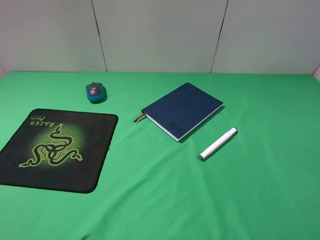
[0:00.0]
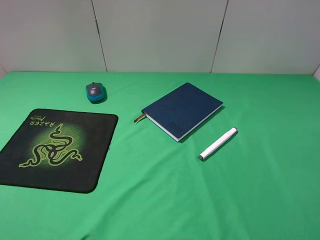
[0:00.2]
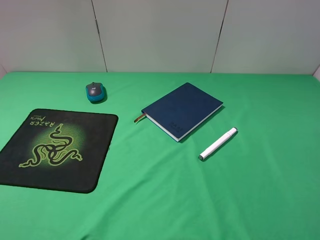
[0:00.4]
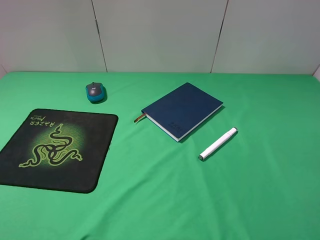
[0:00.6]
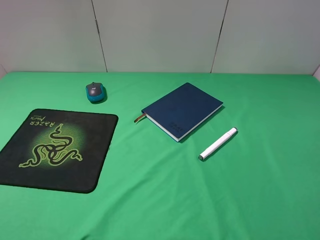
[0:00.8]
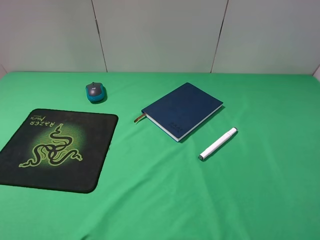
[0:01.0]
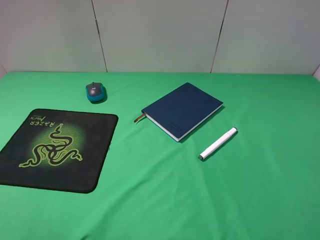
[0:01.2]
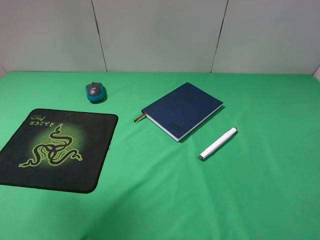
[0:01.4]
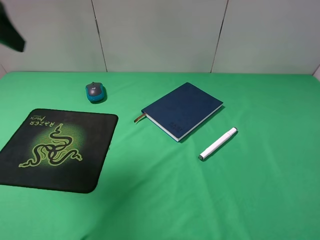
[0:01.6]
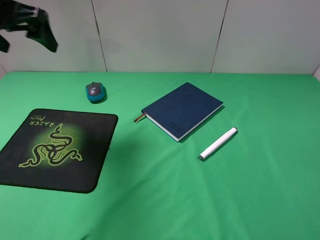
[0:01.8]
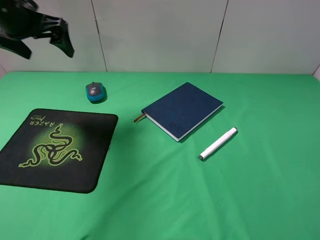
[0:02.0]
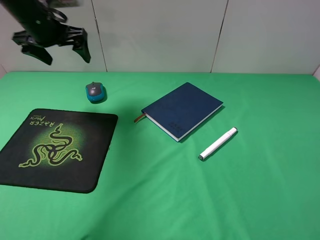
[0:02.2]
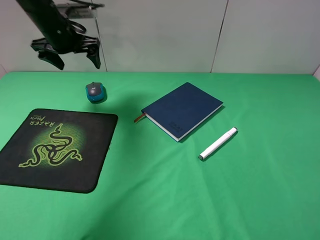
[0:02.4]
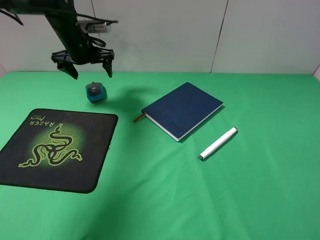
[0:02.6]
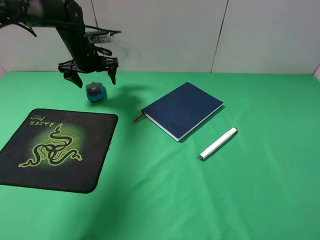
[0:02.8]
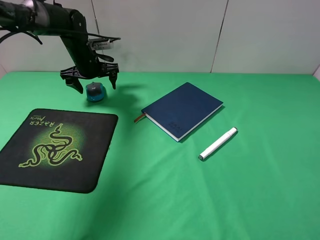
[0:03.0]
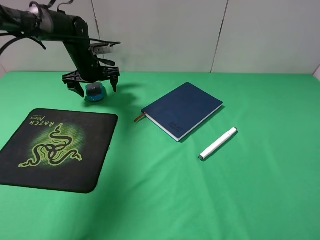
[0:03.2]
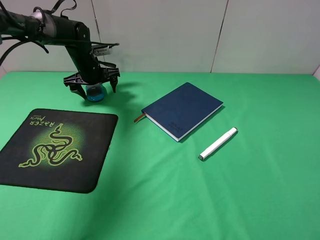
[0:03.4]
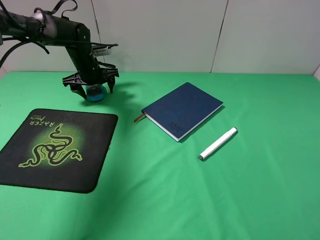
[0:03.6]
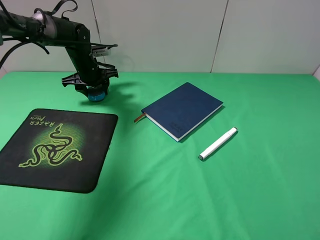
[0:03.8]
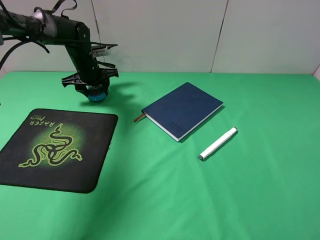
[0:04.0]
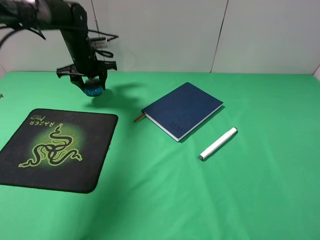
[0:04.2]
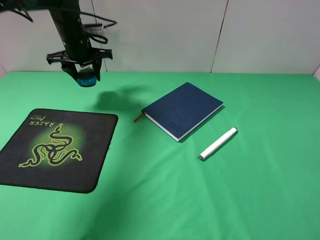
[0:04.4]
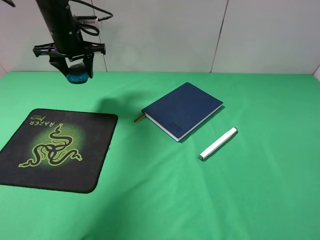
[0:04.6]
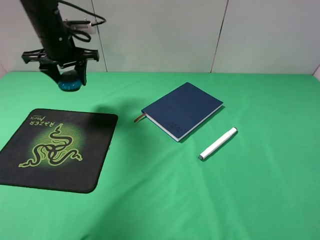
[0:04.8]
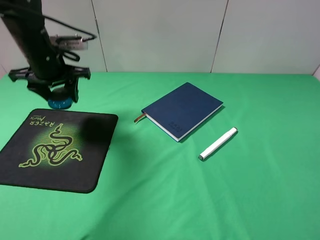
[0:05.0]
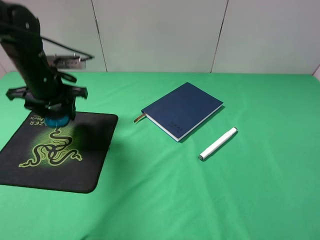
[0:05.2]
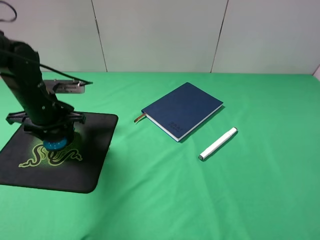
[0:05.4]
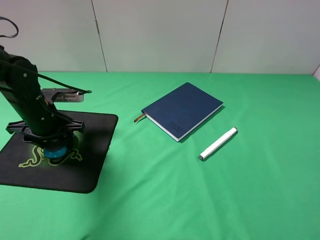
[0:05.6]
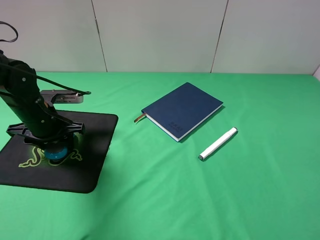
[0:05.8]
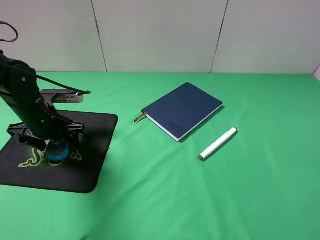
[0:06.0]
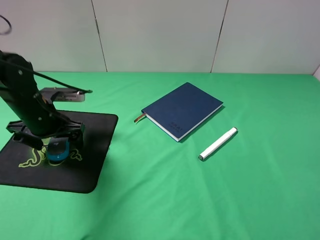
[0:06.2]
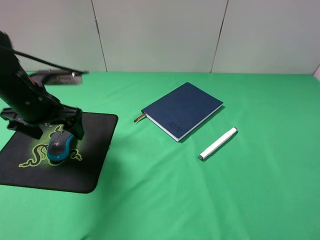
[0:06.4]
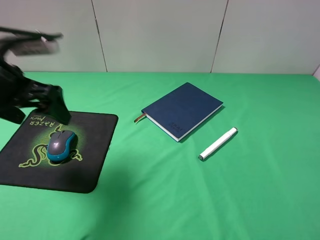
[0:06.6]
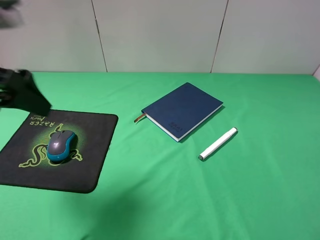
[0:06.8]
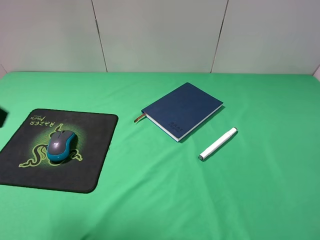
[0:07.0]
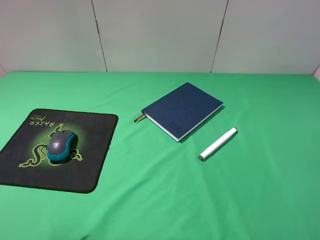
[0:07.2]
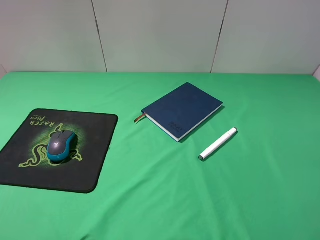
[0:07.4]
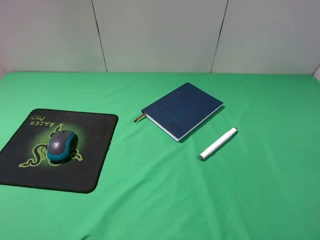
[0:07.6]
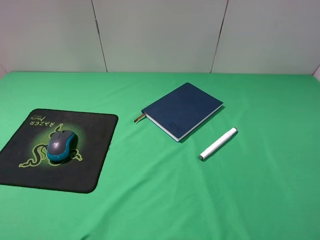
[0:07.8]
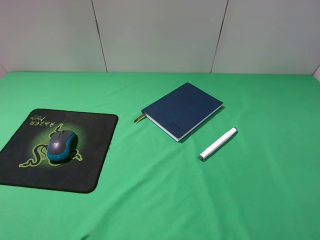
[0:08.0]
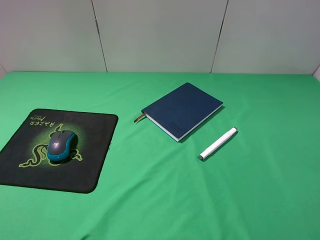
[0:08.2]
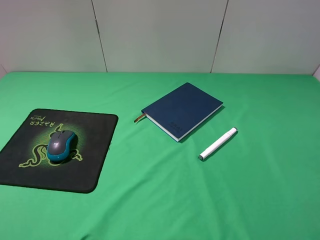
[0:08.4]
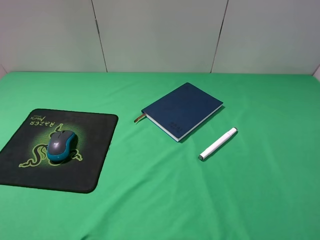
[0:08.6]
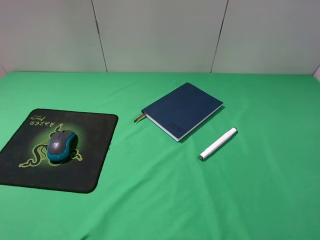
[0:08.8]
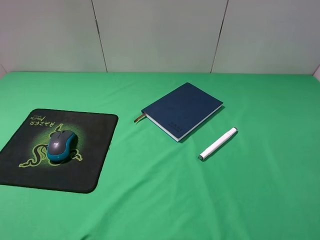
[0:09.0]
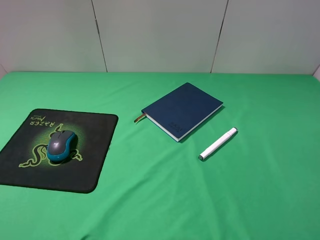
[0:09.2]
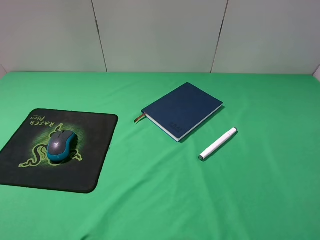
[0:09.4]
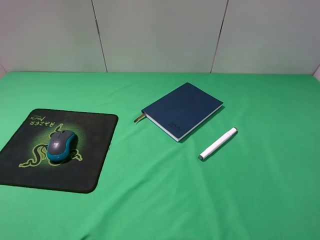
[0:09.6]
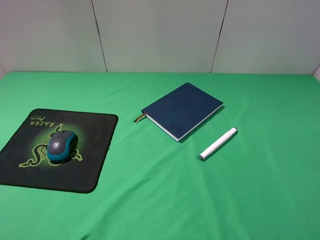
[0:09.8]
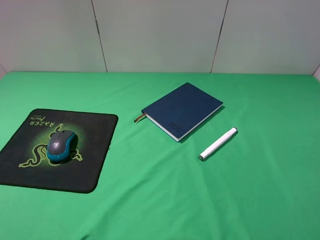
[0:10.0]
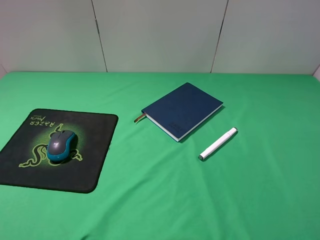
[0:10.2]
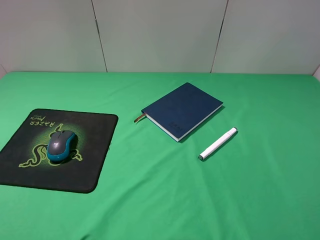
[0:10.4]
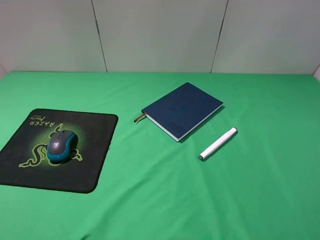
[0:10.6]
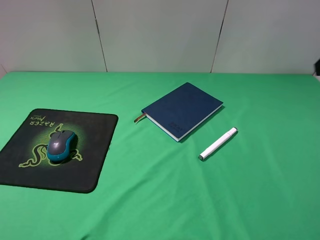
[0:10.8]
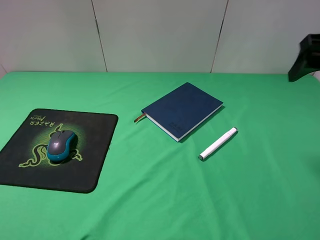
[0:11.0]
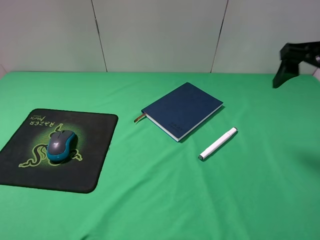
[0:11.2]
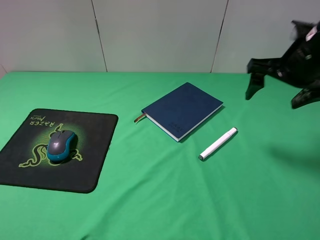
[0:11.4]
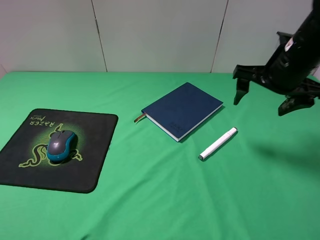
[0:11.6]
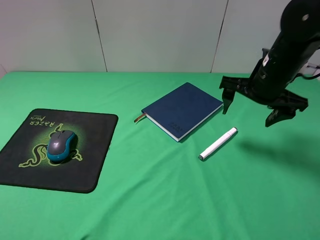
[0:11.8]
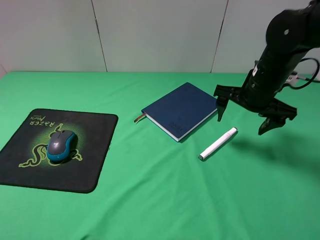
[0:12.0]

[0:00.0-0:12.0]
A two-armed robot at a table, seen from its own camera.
Step, 0:00.0 to 0:03.8: Grasp the mouse with the left gripper.
Step, 0:04.0 to 0:06.2: Place the mouse on the mouse pad with the left gripper.
0:00.0 to 0:01.6: The left gripper moves forward, approximately 25 cm.
0:01.6 to 0:03.0: The left gripper goes roughly 30 cm forward and downward.
0:03.0 to 0:04.4: The left gripper travels upward by about 5 cm, and closes its fingers.
0:04.4 to 0:06.0: The left gripper goes some 20 cm backward and downward, and opens up.
0:06.0 to 0:07.6: The left gripper shifts approximately 35 cm backward and upward.
0:10.4 to 0:12.0: The right gripper shifts about 30 cm forward, downward and to the left.

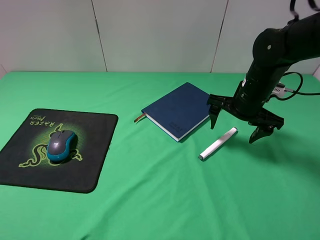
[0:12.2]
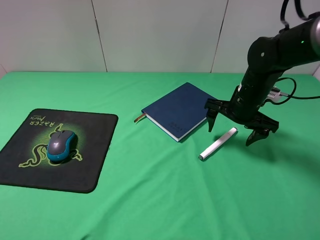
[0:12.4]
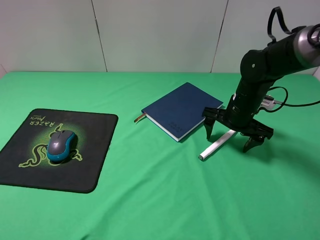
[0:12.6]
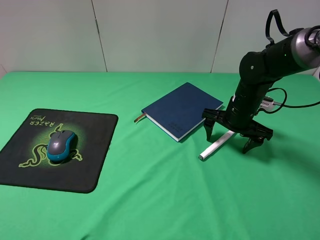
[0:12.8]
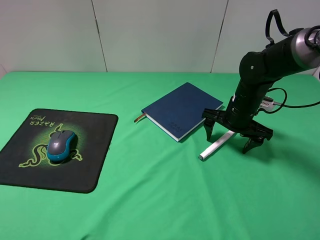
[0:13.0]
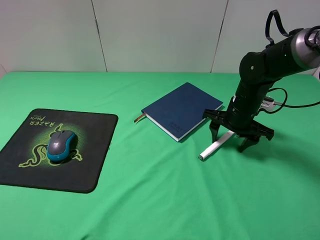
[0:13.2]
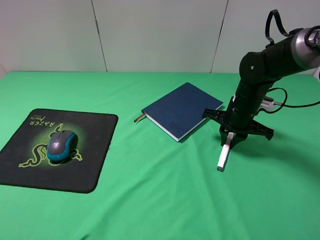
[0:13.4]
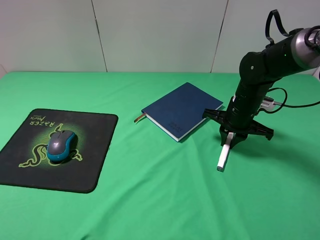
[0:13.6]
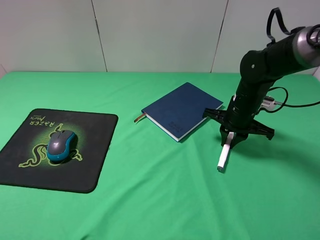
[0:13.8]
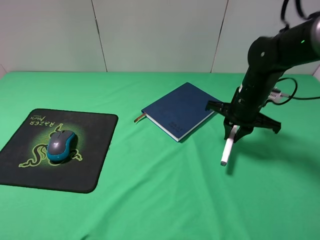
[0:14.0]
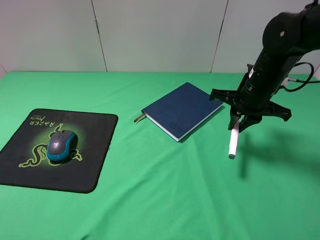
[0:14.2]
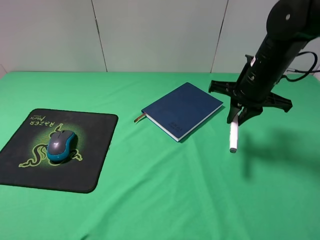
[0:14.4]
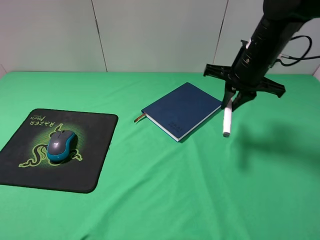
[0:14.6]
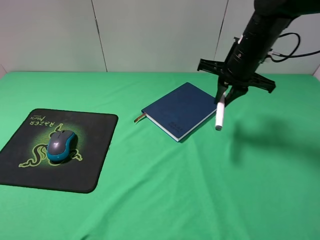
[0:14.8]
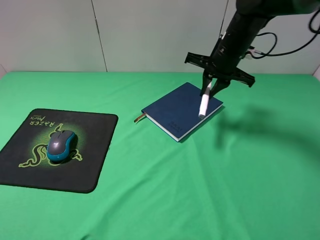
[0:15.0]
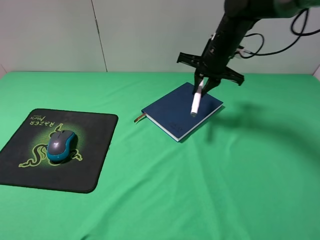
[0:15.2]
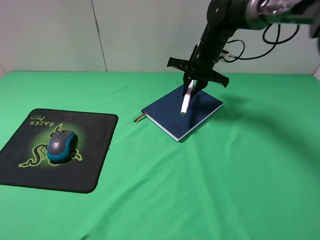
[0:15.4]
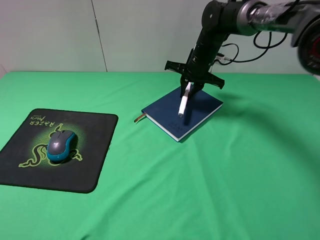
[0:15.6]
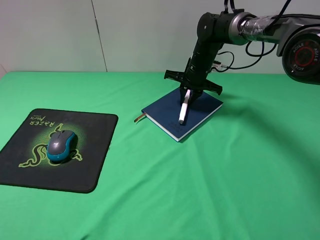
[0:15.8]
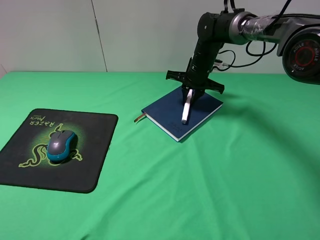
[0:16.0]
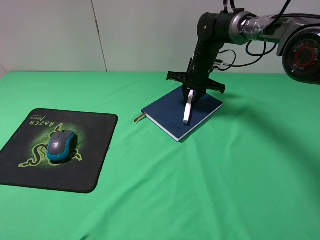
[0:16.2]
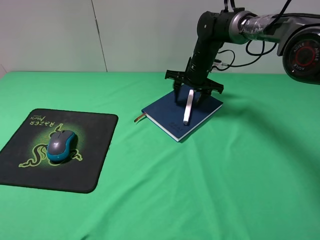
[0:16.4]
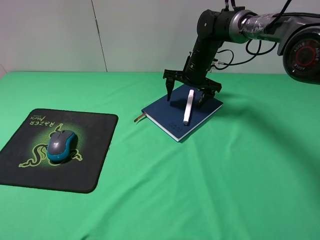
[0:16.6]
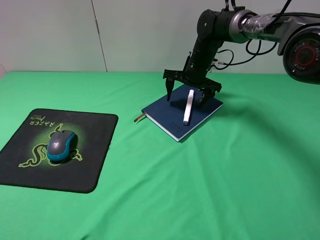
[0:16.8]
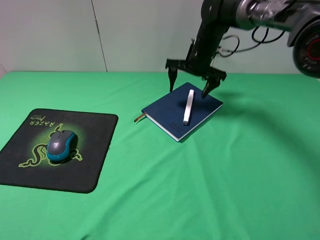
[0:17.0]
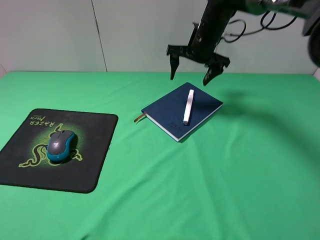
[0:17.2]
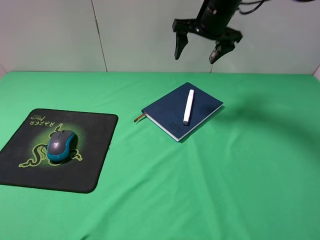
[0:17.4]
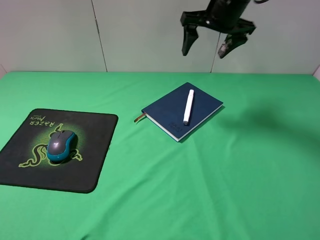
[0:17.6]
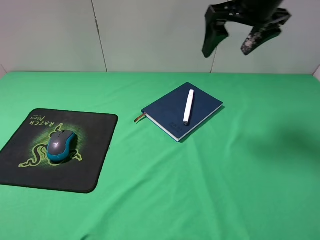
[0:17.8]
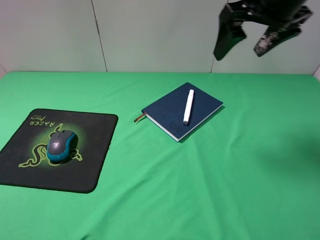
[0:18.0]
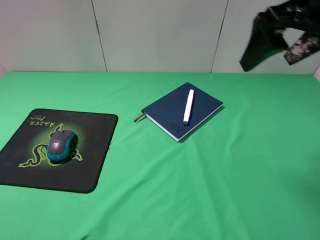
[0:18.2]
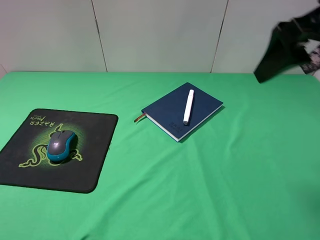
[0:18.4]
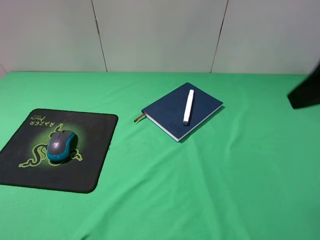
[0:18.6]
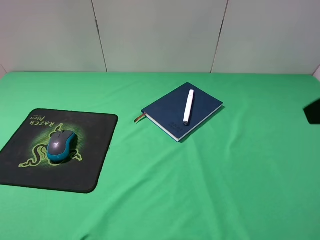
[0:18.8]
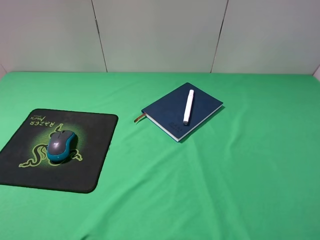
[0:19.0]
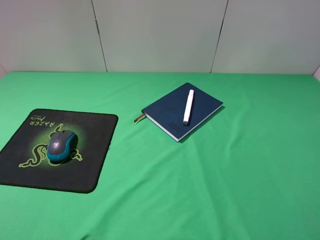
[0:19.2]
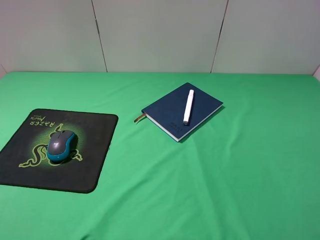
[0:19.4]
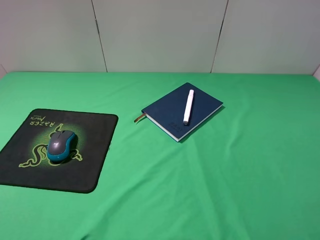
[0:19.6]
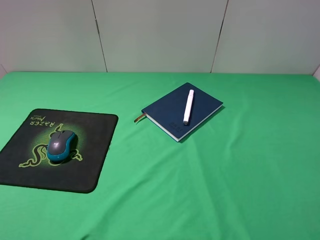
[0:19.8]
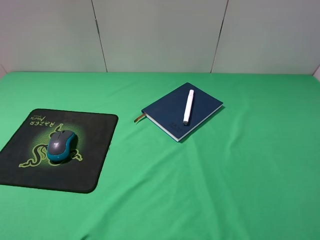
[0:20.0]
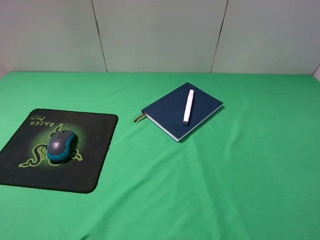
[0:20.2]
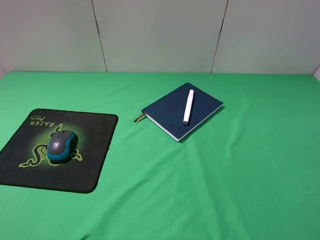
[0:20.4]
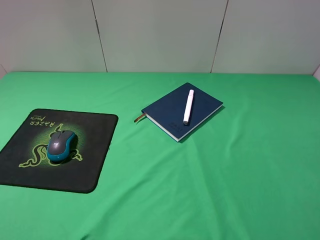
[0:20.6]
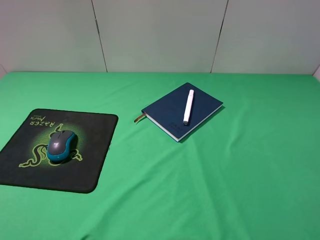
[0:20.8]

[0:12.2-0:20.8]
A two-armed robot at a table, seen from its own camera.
Step, 0:13.8 to 0:16.6: Place the marker on the notebook with the right gripper.
0:12.2 to 0:13.6: The right gripper closes its fingers.
0:13.6 to 0:15.0: The right gripper shifts roughly 10 cm upward and forward.
0:15.0 to 0:16.6: The right gripper goes roughly 10 cm downward and forward, and opens its fingers.
0:16.6 to 0:18.0: The right gripper shifts about 30 cm upward and backward.
0:18.0 to 0:19.4: The right gripper travels backward and to the right by approximately 30 cm.
